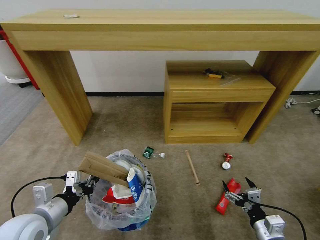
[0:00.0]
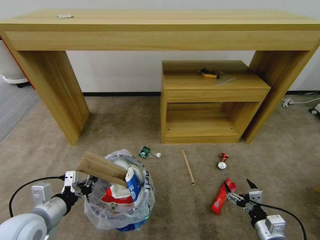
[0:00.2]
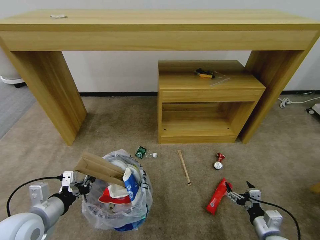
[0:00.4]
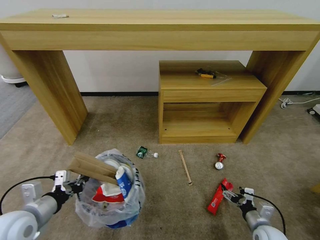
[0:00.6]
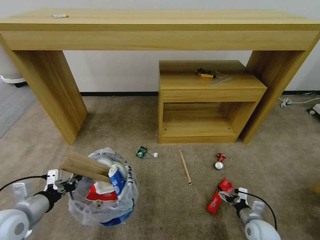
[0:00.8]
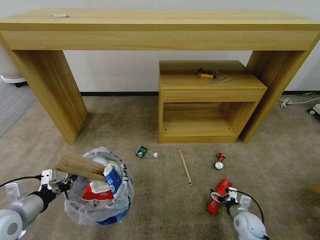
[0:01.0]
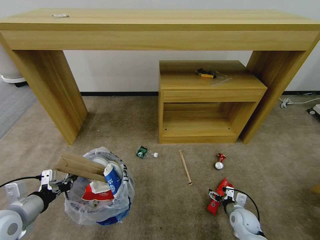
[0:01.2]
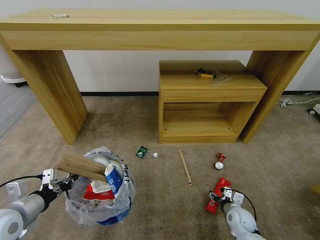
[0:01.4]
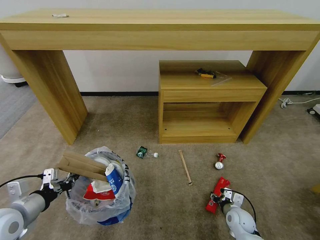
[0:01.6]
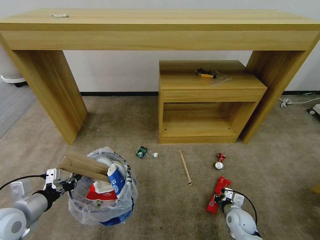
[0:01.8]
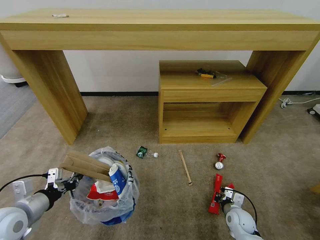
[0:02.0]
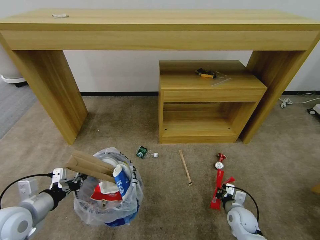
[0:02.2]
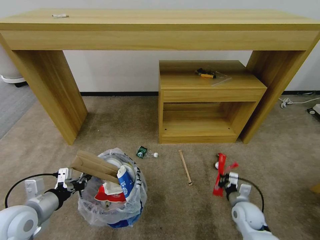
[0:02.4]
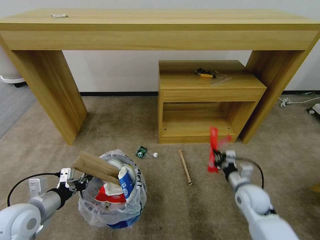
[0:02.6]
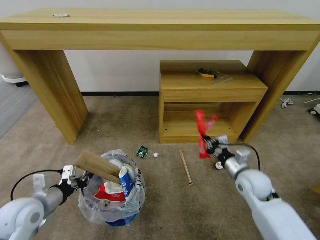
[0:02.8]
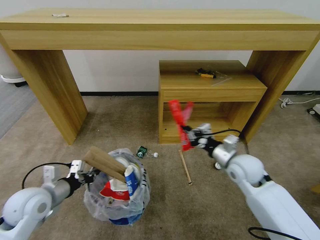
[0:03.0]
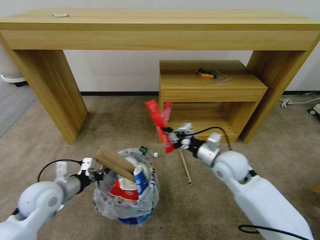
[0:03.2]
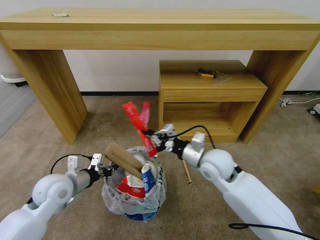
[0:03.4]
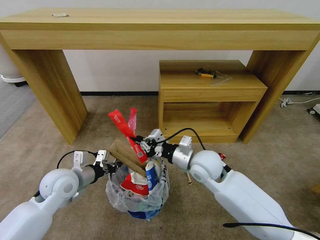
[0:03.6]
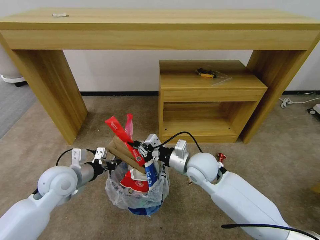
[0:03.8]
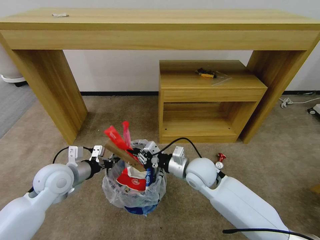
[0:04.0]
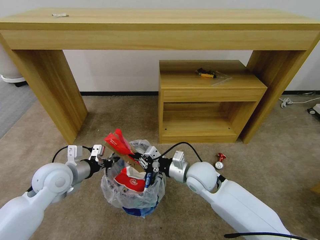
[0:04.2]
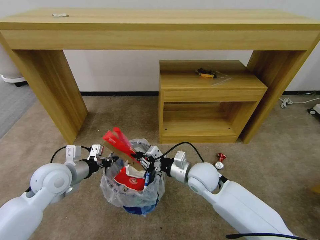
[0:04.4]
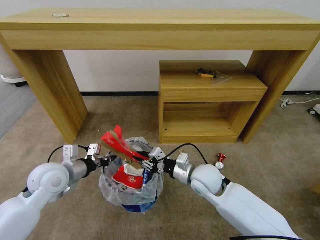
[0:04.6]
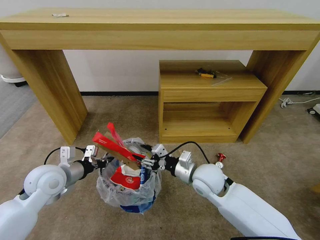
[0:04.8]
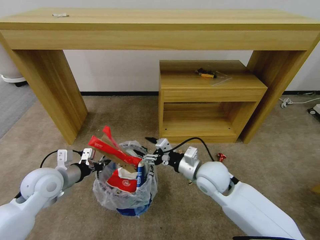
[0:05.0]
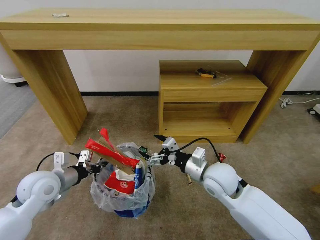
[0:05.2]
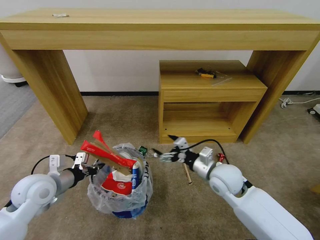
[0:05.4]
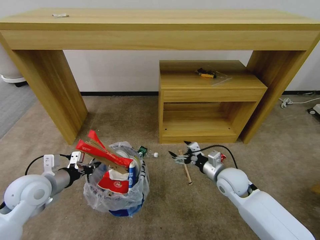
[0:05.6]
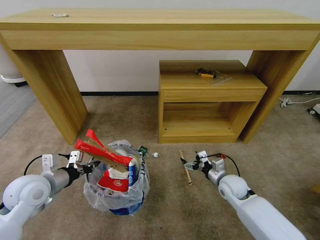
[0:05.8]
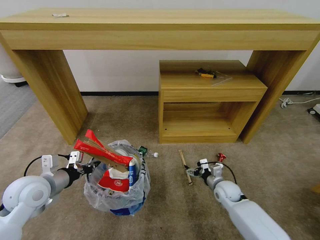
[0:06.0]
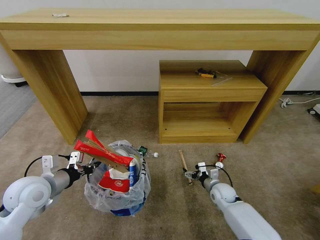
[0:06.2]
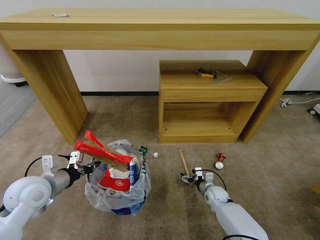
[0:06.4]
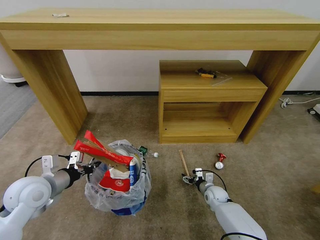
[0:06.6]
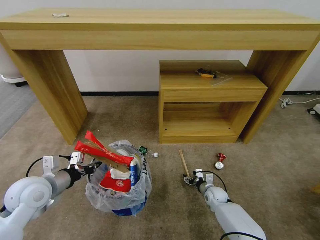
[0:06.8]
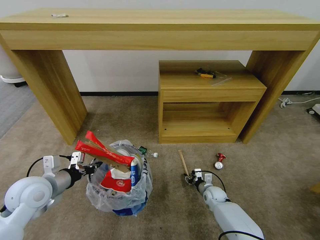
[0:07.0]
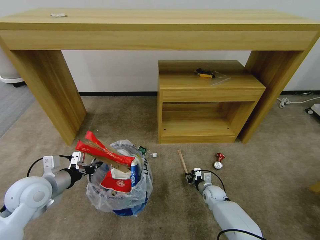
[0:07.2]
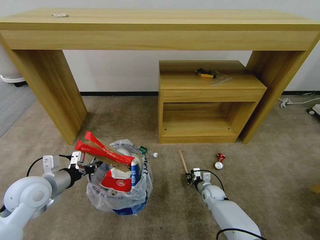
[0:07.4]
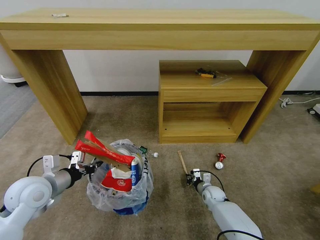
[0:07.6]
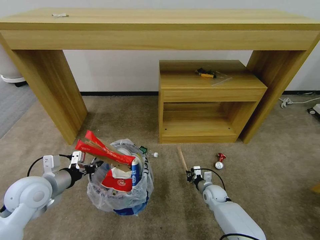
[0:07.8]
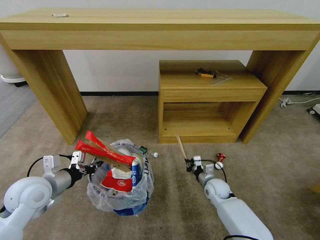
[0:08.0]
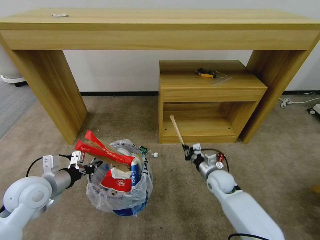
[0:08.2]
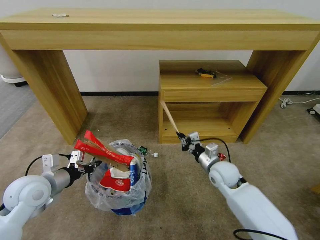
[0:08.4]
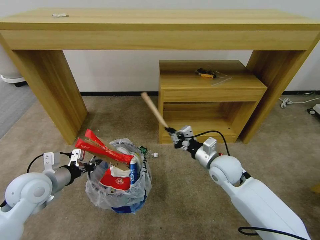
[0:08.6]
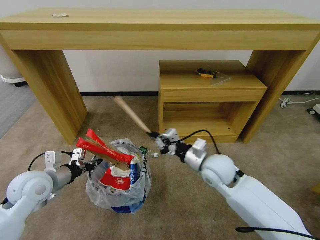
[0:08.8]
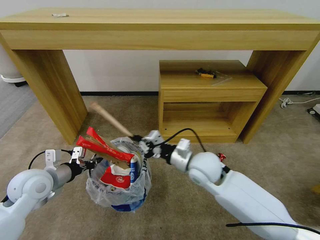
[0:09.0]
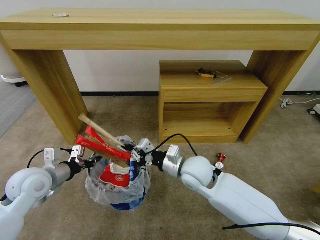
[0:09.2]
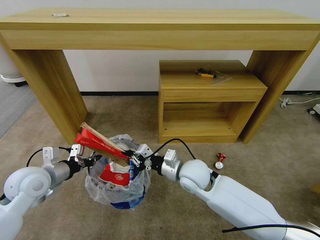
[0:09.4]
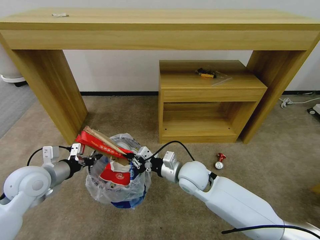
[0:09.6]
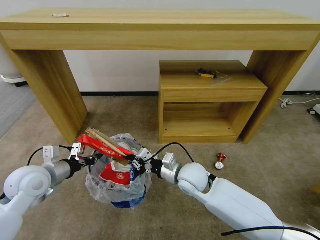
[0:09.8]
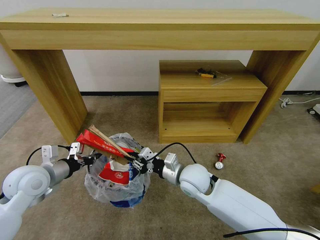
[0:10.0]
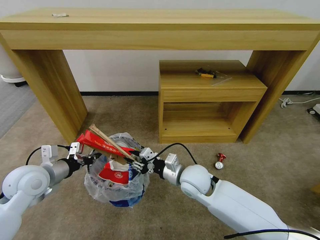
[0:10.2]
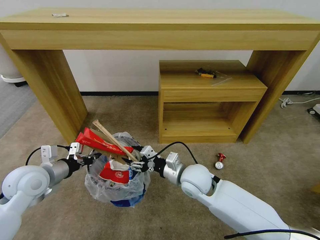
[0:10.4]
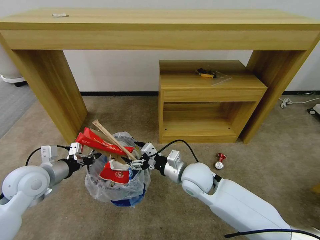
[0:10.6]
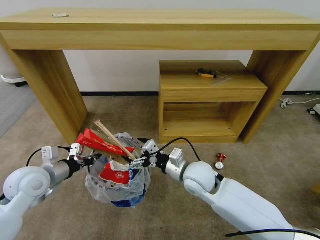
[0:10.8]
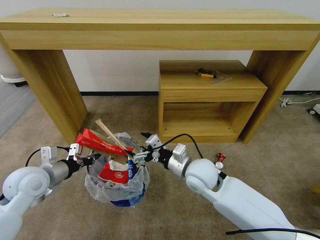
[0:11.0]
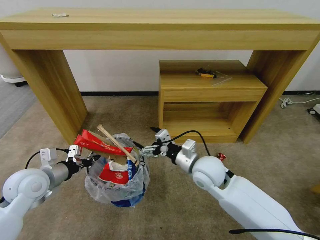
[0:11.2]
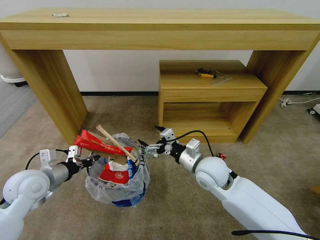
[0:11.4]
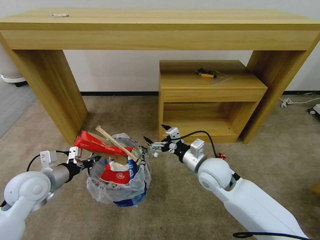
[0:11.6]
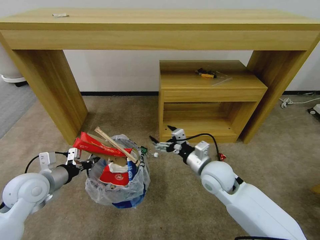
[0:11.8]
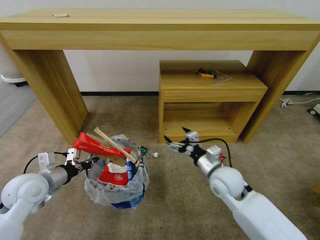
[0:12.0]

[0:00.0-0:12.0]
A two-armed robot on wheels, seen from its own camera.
Task of the whole recording: Pick up the trash bin and place the garbage on the floor into it.
0:00.0 to 0:01.6: The left gripper shifts roughly 5 cm to the left; the right gripper heads downward and forward, covering some 20 cm, and closes its fingers.
0:01.6 to 0:03.0: The left gripper is displaced forward by about 5 cm. The right gripper travels upward by some 25 cm, and closes its fingers.
0:03.0 to 0:04.4: The left gripper is displaced forward by approximately 5 cm. Meanwhile the right gripper moves to the left, approximately 15 cm.
0:04.4 to 0:06.0: The left gripper changes place by about 5 cm; the right gripper shifts about 20 cm downward and to the right, and opens.
0:06.0 to 0:07.6: The right gripper travels downward by some 10 cm, and closes.
0:07.6 to 0:09.0: The right gripper travels upward and to the left by roughly 35 cm.
0:09.0 to 0:10.4: The right gripper ends up about 5 cm from where it was, and opens.
0:10.4 to 0:12.0: The right gripper travels to the right by roughly 10 cm, and opens its fingers.

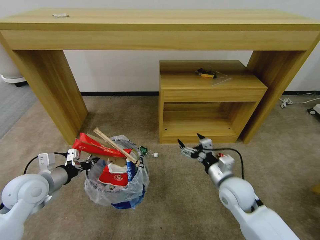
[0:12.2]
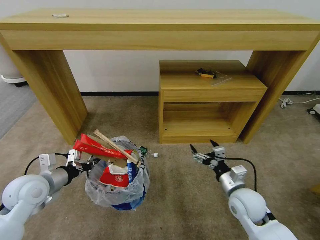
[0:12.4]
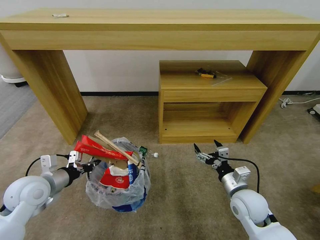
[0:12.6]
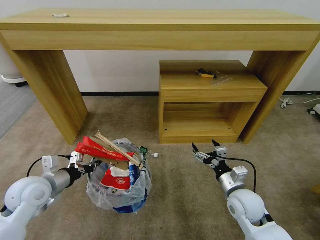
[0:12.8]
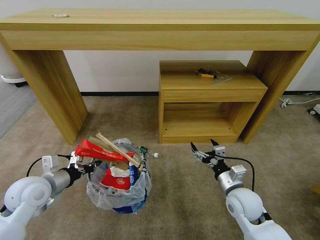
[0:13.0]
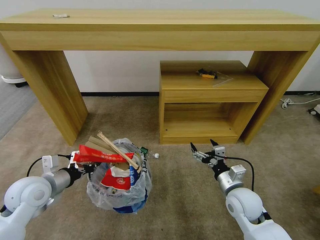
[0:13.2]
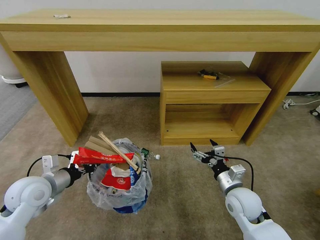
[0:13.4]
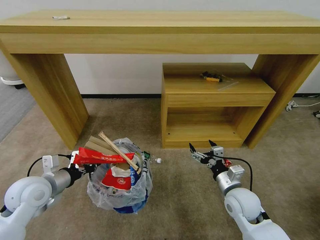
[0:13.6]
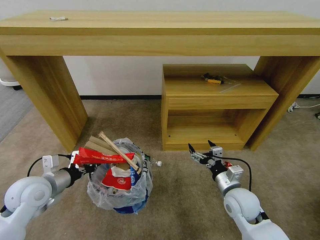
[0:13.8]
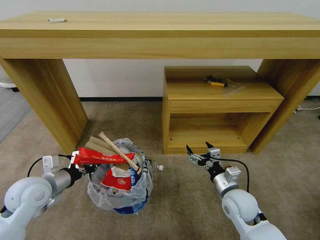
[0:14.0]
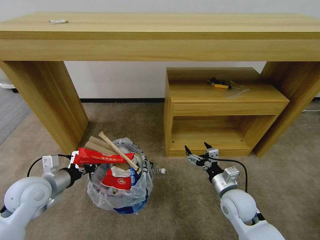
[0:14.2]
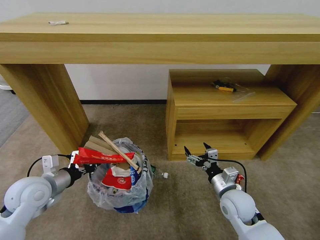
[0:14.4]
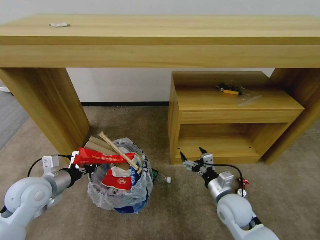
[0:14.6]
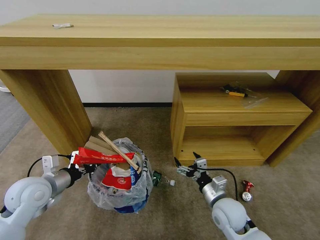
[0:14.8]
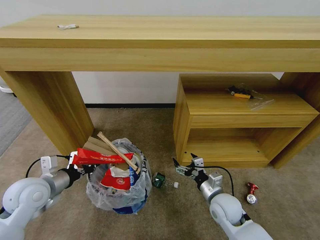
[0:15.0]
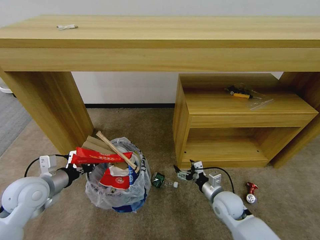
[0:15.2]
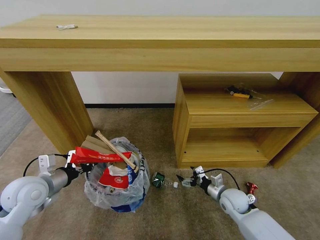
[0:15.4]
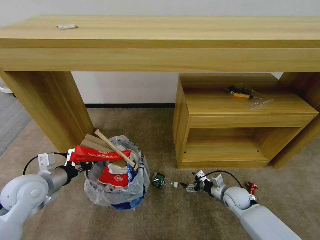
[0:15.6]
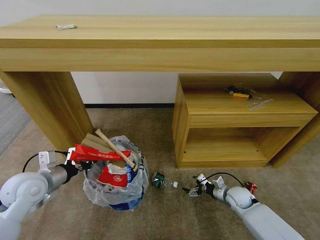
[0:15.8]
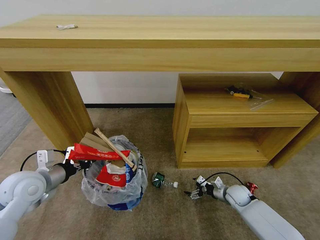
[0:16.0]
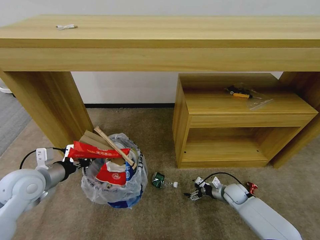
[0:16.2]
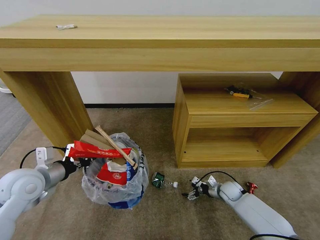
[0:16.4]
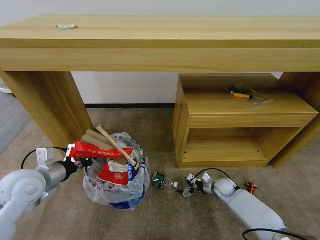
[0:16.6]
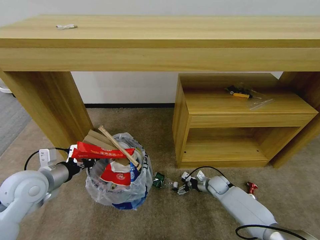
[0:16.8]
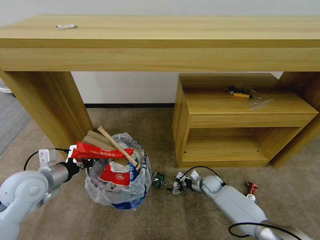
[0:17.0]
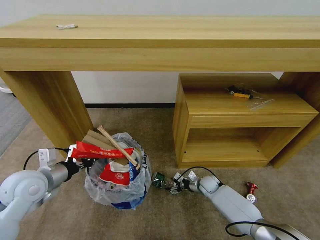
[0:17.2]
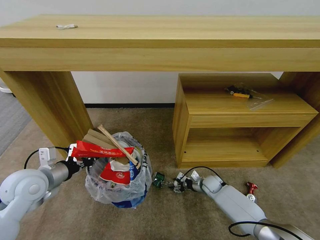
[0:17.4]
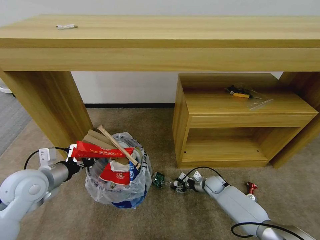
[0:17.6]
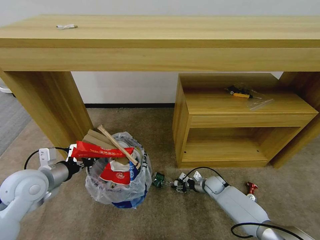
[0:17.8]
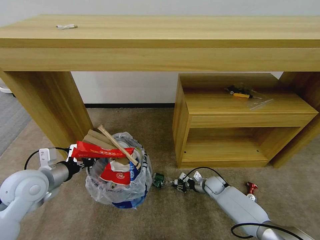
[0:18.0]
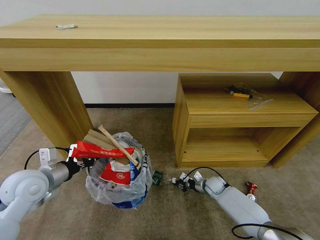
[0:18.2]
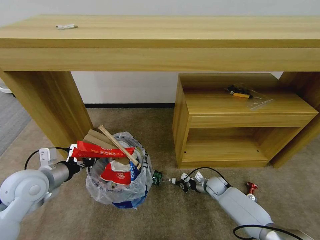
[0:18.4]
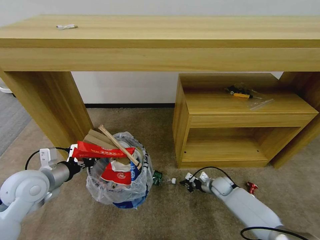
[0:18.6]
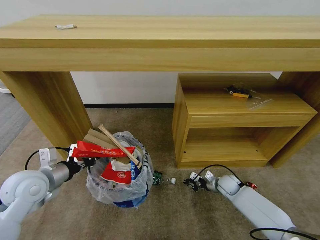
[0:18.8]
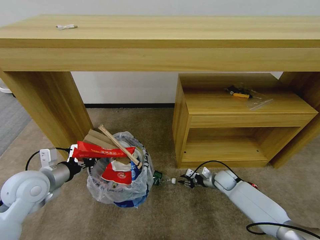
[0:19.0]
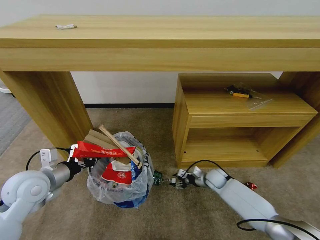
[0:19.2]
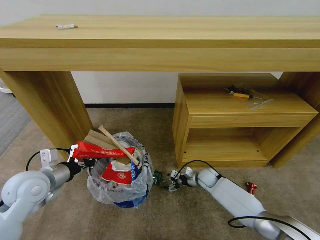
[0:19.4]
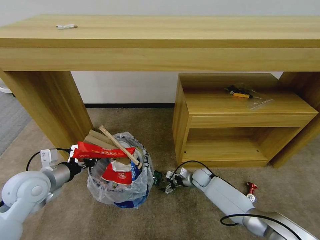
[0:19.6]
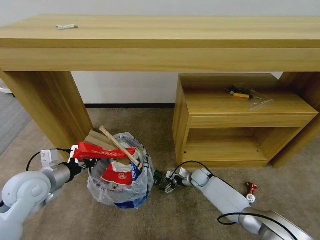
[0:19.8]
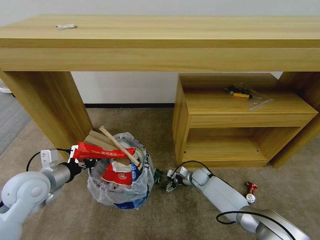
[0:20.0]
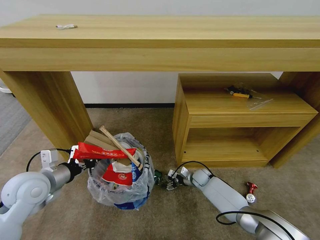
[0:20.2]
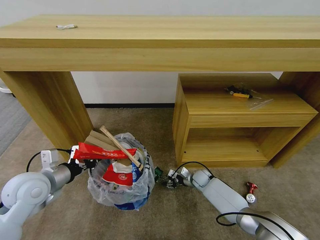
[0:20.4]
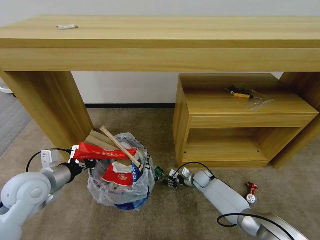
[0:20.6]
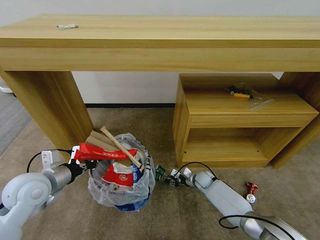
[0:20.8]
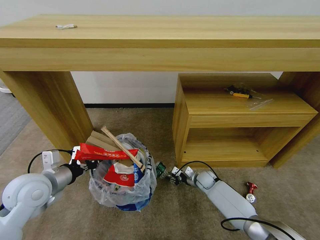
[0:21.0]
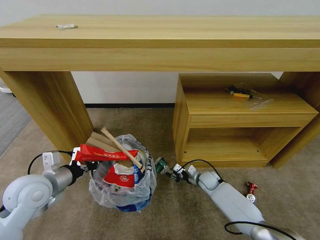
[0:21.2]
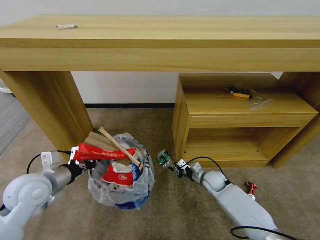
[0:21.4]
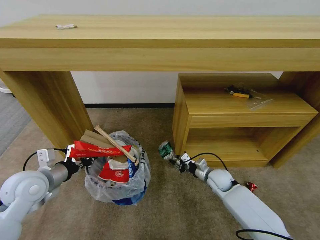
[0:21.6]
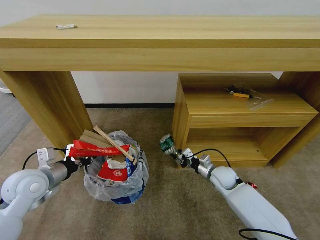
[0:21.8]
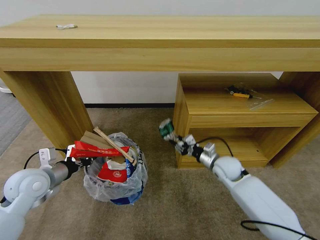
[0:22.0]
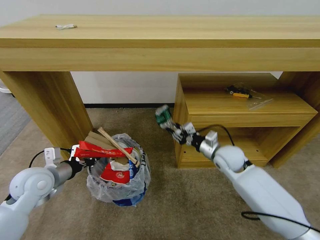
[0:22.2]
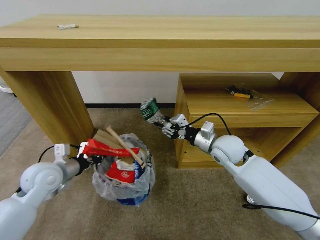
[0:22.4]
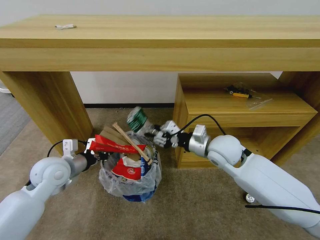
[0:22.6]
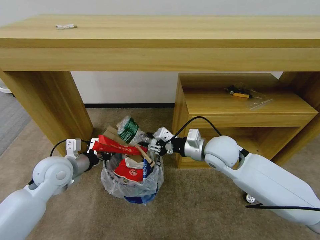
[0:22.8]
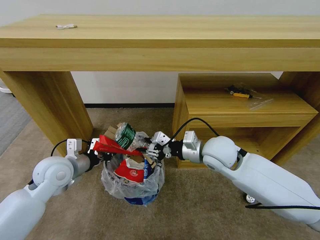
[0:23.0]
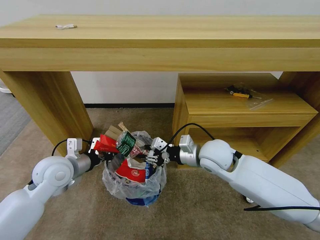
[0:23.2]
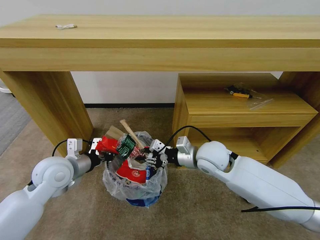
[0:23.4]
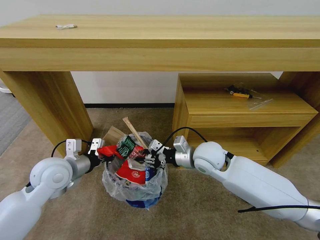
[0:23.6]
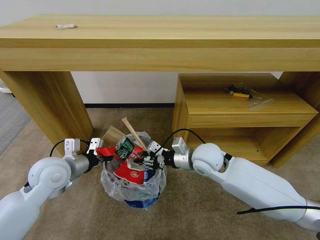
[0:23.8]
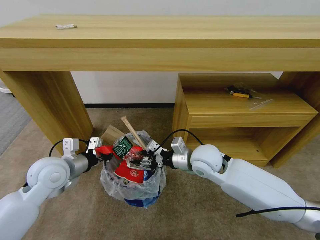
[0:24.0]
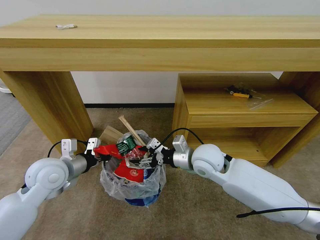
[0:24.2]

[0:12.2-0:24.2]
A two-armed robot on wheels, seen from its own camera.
Task of the whole recording: Pick up the trash bin and place the garbage on the floor into it.
0:13.8 to 0:15.2: The right gripper heads downward, covering some 5 cm.
0:15.2 to 0:16.6: The right gripper shifts approximately 15 cm downward, forward and to the right.
0:16.6 to 0:18.2: The right gripper closes up.
0:18.2 to 0:19.8: The right gripper goes roughly 5 cm to the left, and opens.
0:19.8 to 0:21.2: The right gripper closes.
0:21.2 to 0:22.6: The right gripper goes about 30 cm upward. The left gripper heads forward, covering about 5 cm.
0:22.6 to 0:24.2: The right gripper heads to the left, covering roughly 5 cm, and opens its fingers.
